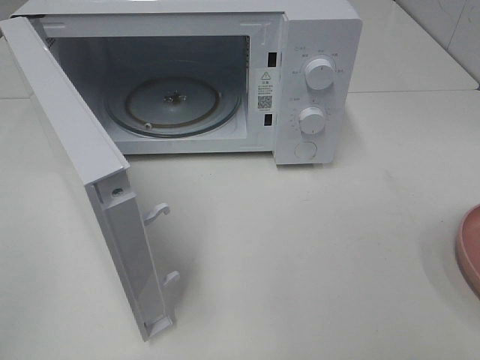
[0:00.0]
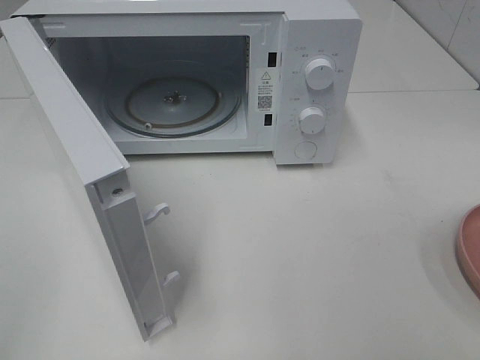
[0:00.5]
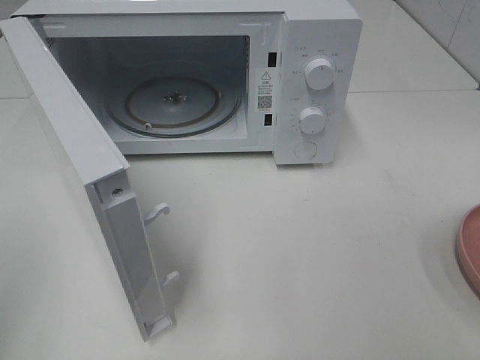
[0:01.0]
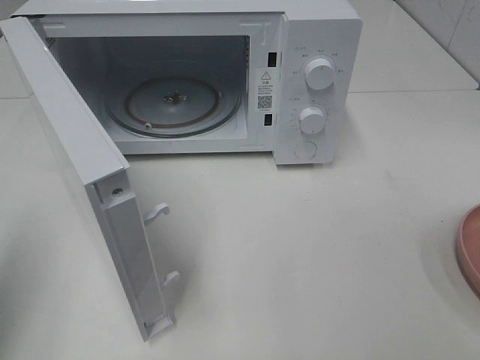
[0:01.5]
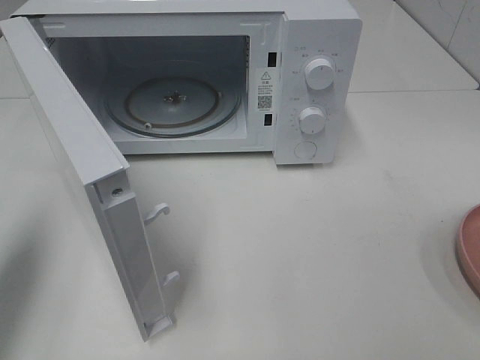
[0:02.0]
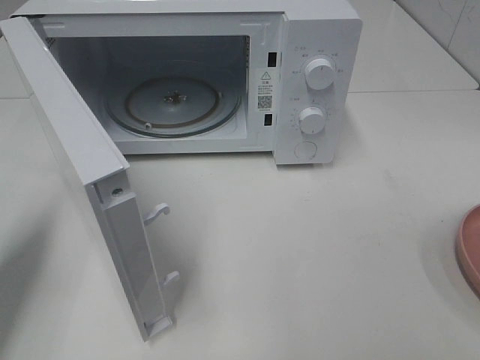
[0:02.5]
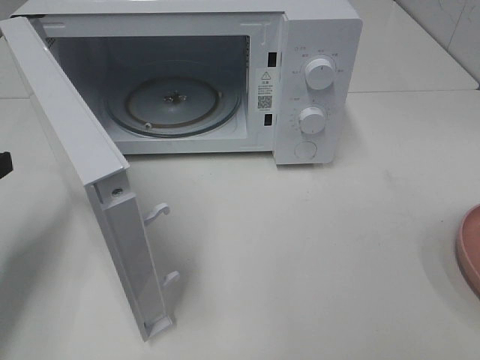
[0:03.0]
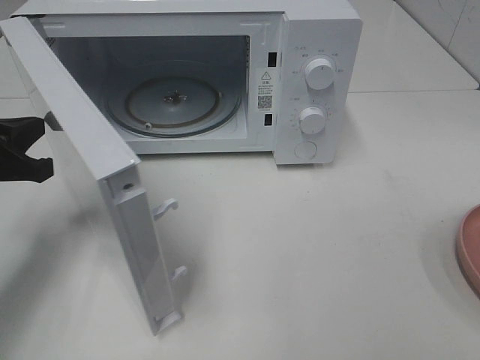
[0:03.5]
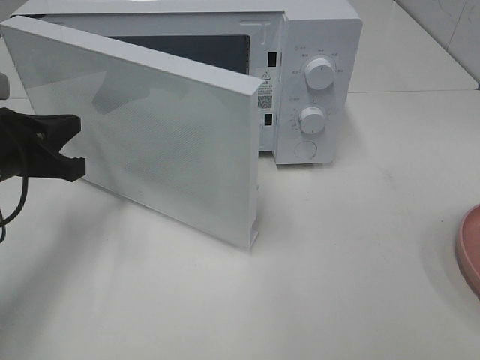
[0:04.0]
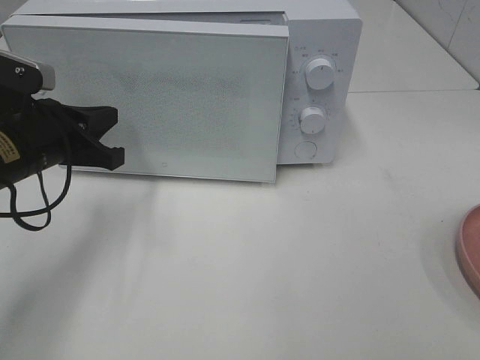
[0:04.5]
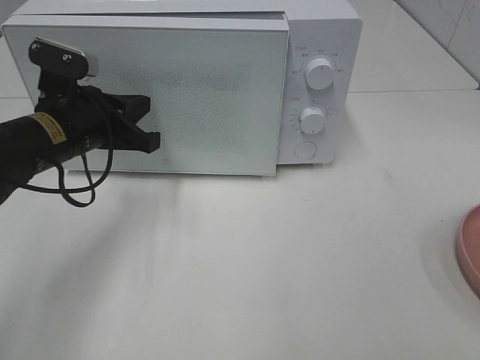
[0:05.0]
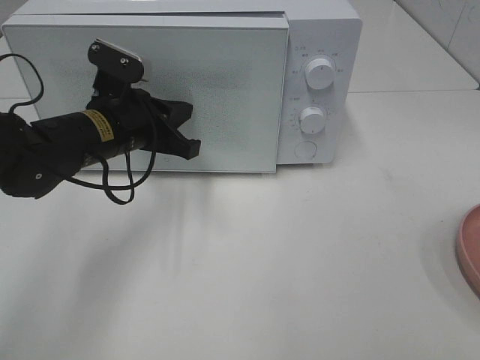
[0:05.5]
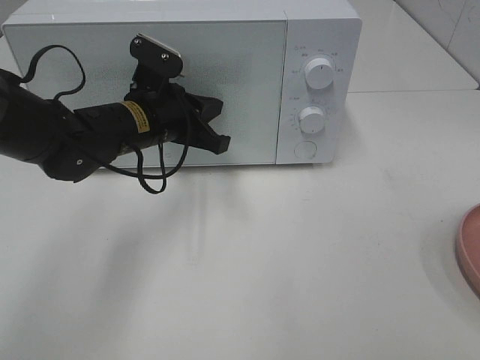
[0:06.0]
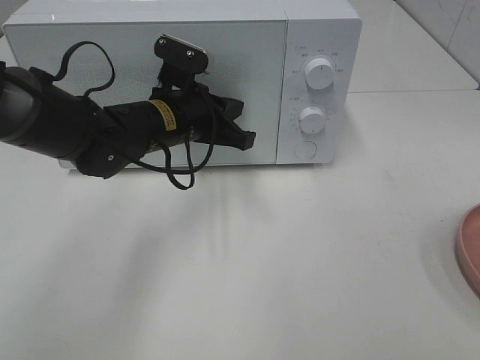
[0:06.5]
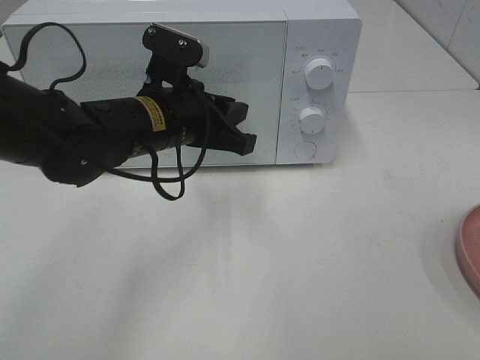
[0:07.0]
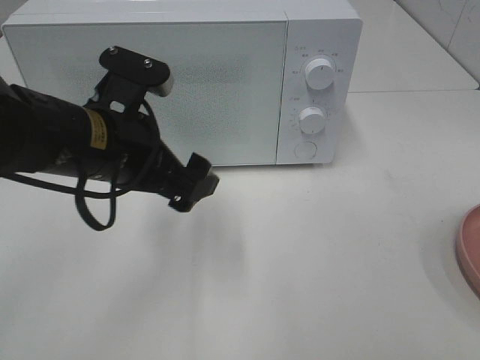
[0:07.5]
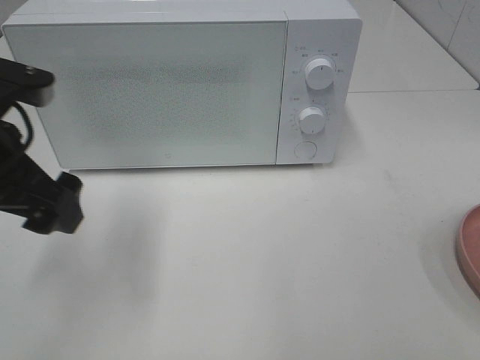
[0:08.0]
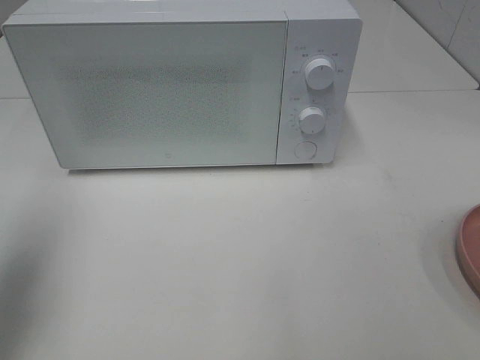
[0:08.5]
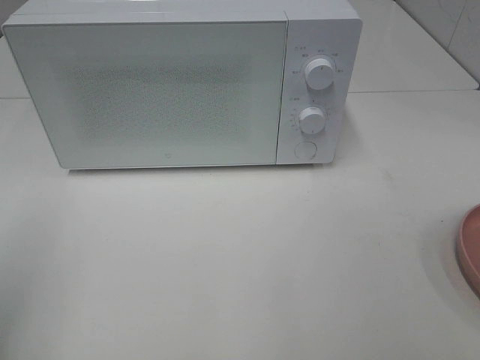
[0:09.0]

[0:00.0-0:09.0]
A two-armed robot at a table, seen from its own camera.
Task of the whole recording: Heat the burger.
Step, 0.0 to 7.0 s: Left hand: close the microwave door.
0.0 to 2.0 s: The left gripper moves forward, about 20 cm, and closes.
2.0 to 4.5 s: The left gripper is displaced downward, forward and to the right by about 20 cm.
4.5 to 7.0 s: The left gripper goes approximately 15 cm to the right.
7.0 to 9.0 s: The left gripper shifts about 35 cm to the left, backward and upward, and opens its fingers.

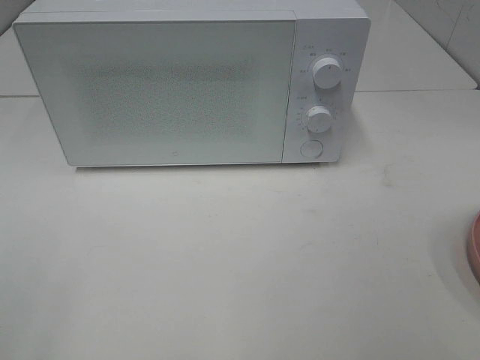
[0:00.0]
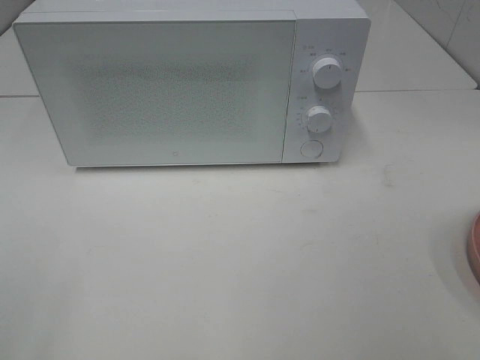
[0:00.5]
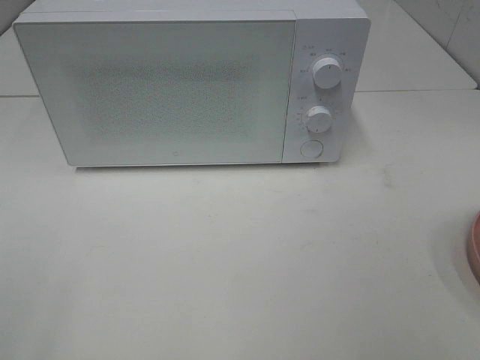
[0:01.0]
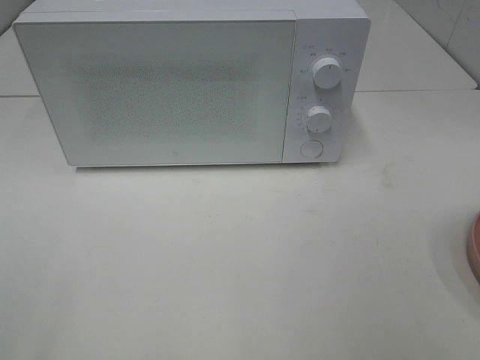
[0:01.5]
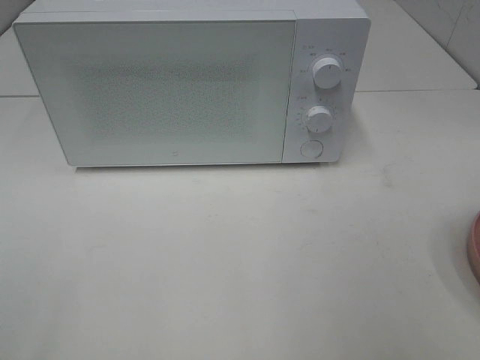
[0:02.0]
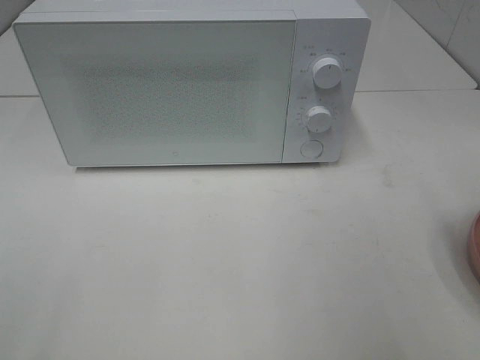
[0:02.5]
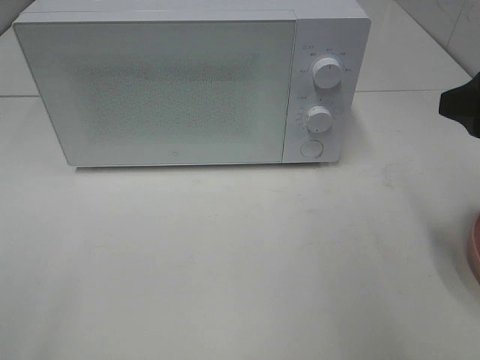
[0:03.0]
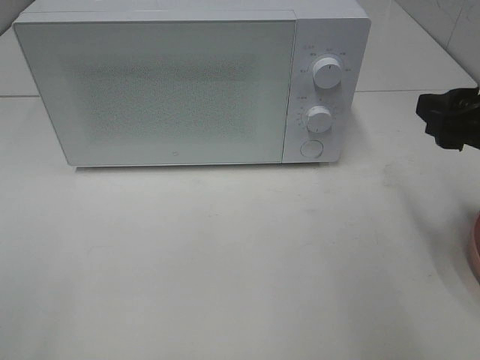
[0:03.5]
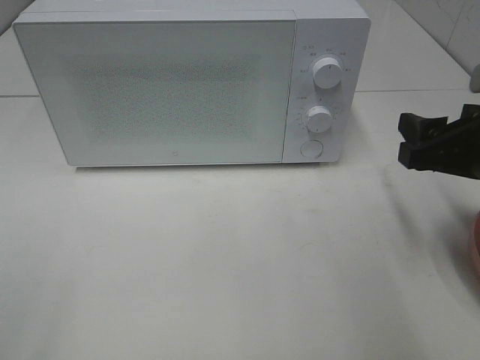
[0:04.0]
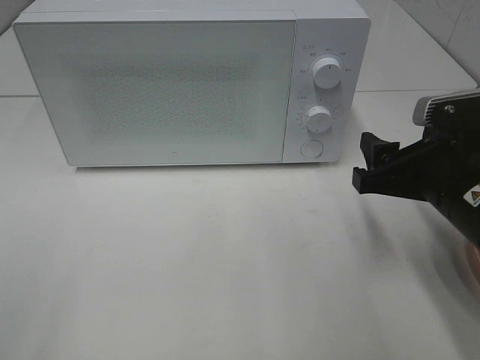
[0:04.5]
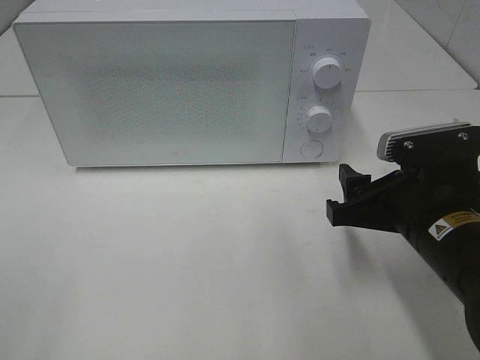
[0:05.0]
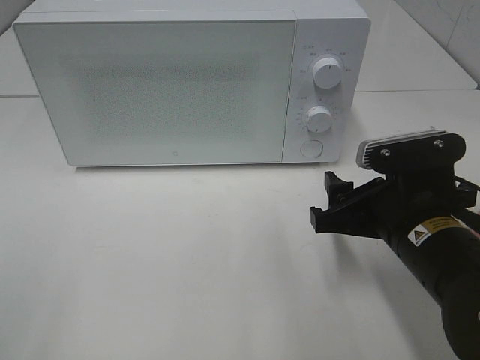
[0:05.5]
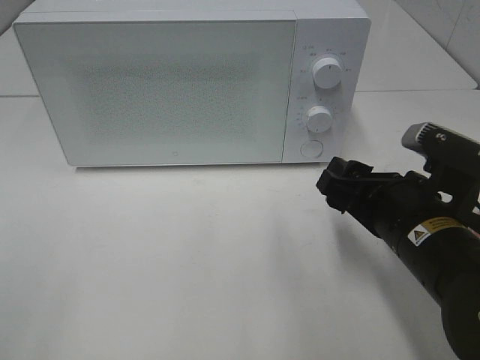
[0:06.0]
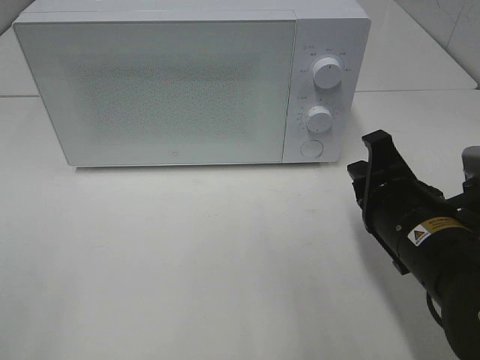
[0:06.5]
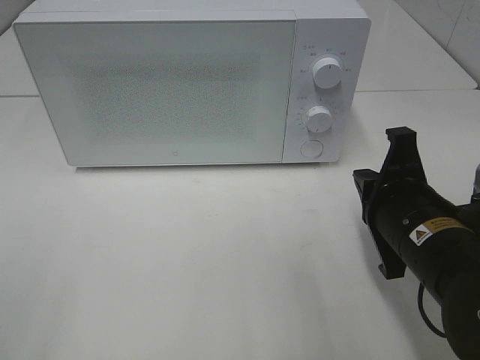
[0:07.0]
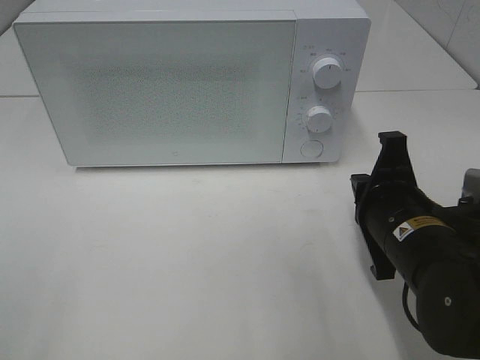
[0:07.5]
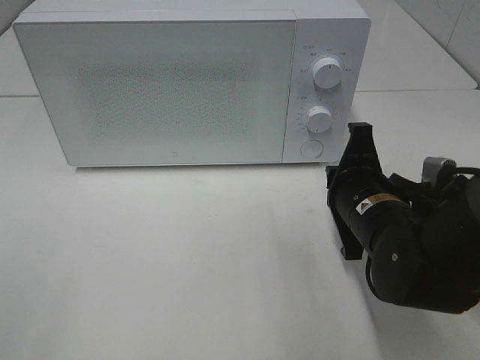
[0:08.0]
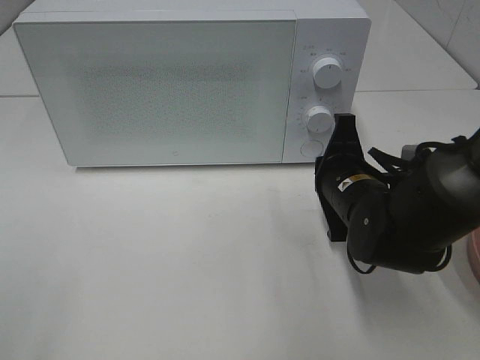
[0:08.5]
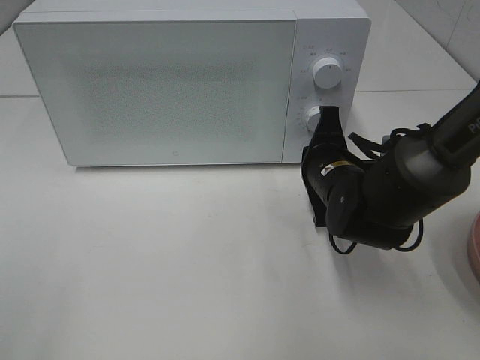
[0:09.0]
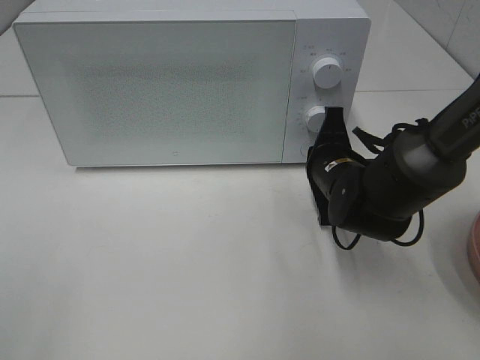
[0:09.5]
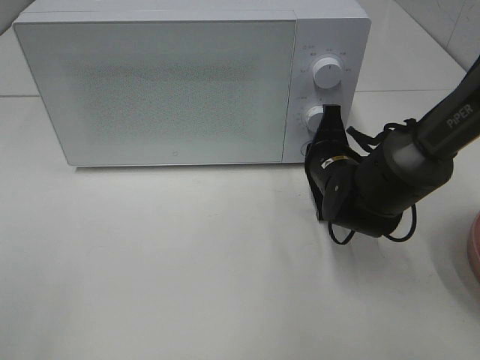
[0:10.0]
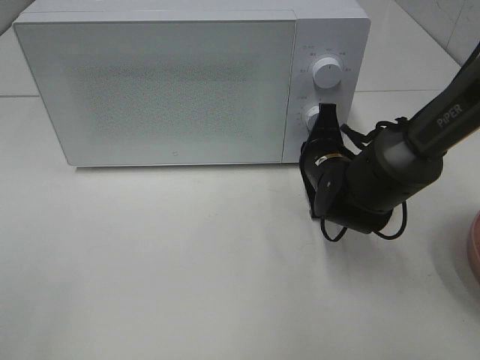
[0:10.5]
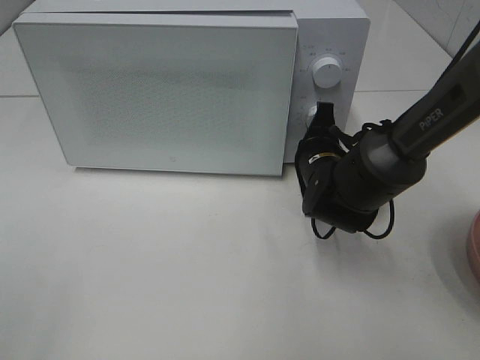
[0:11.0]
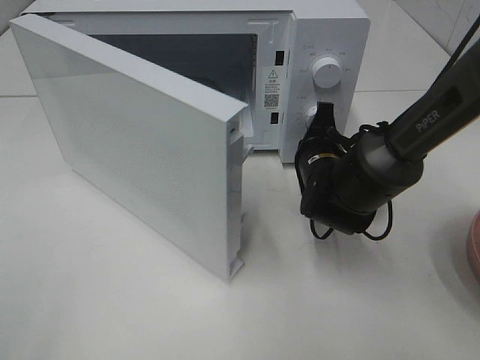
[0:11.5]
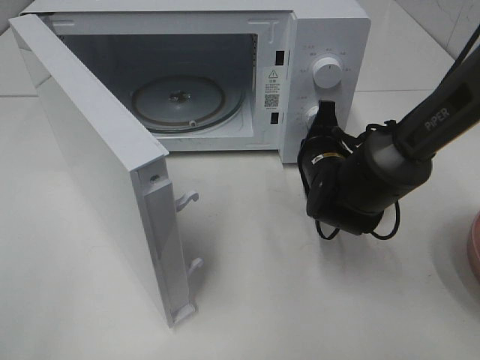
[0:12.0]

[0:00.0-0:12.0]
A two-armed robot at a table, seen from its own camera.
Task of the whole recording: Heat the burger.
2.0 to 4.0 s: The right gripper goes some 15 cm forward and downward.
4.0 to 6.0 s: The right gripper heads to the left and downward, covering about 10 cm.
6.0 to 8.0 s: The right gripper ends up roughly 5 cm from where it was, and closes up.
8.0 to 10.0 s: The right gripper moves forward, roughly 10 cm.

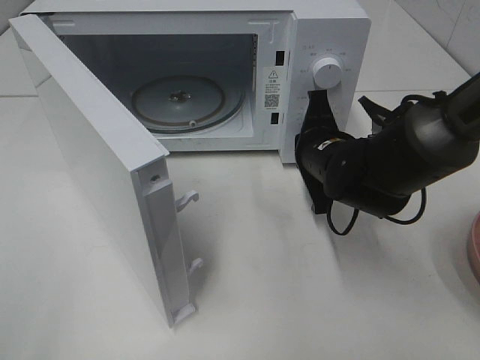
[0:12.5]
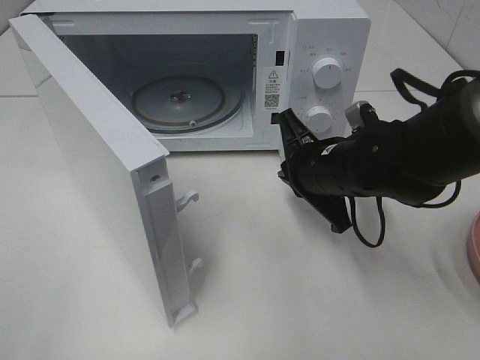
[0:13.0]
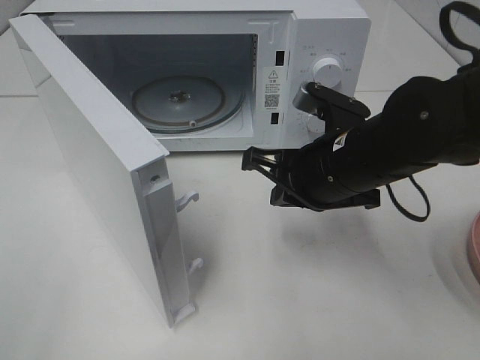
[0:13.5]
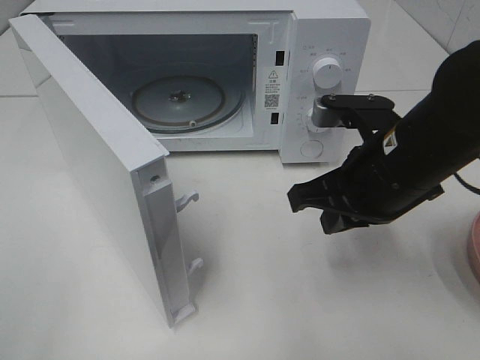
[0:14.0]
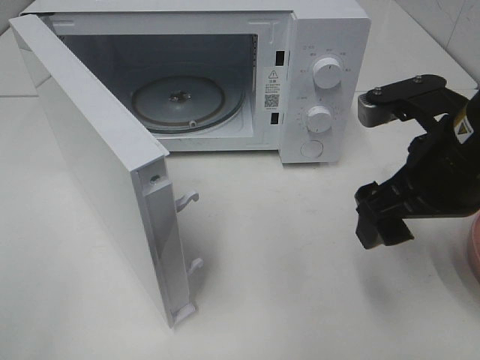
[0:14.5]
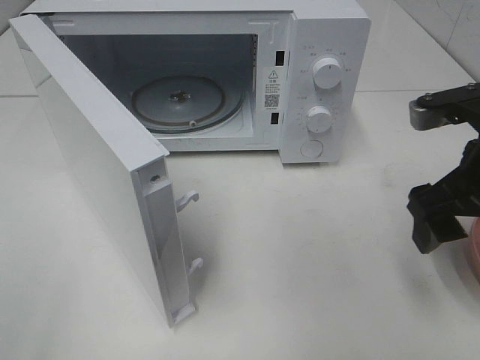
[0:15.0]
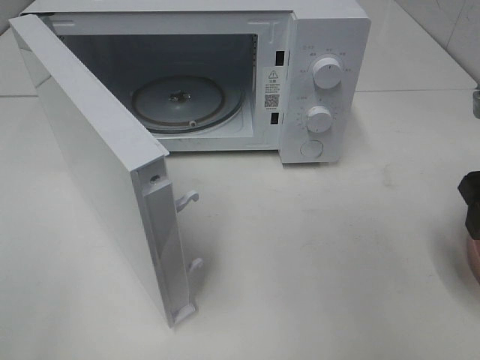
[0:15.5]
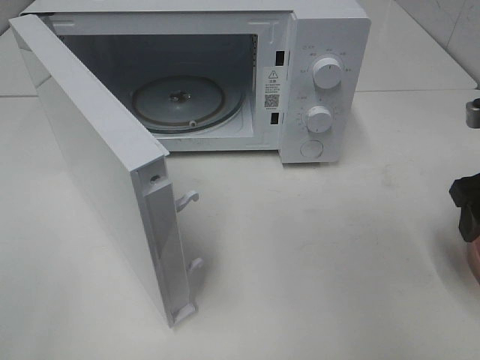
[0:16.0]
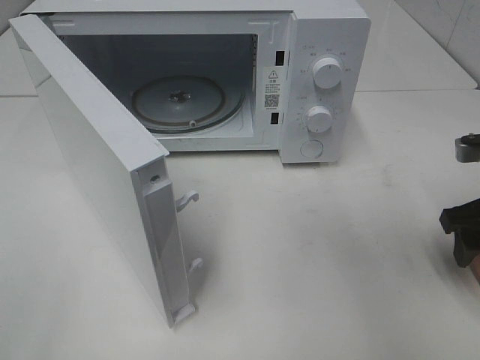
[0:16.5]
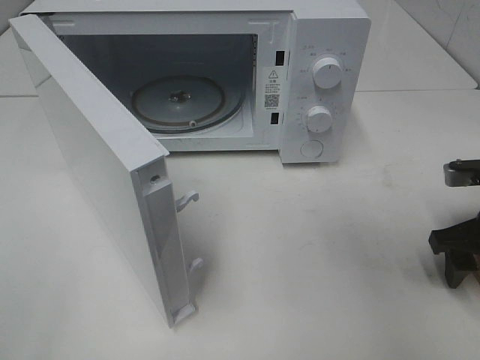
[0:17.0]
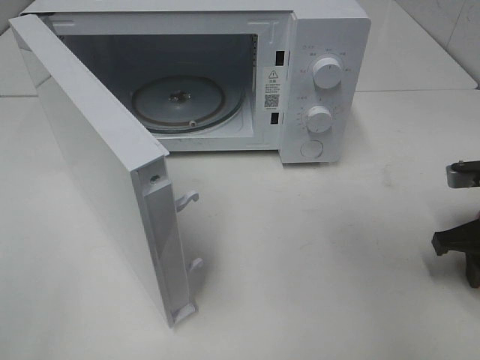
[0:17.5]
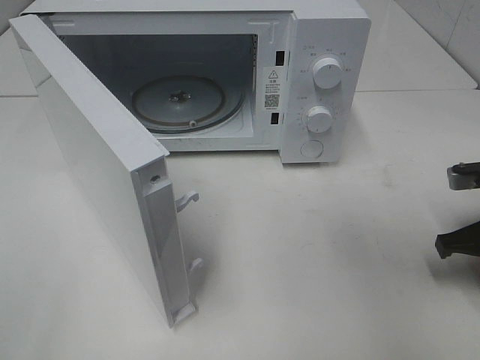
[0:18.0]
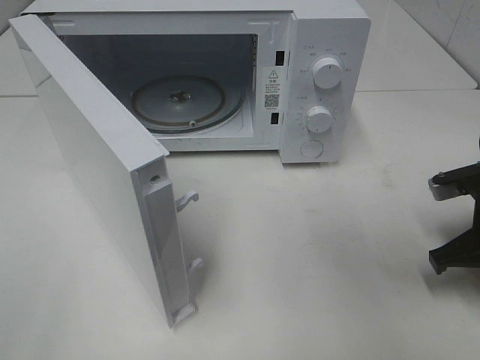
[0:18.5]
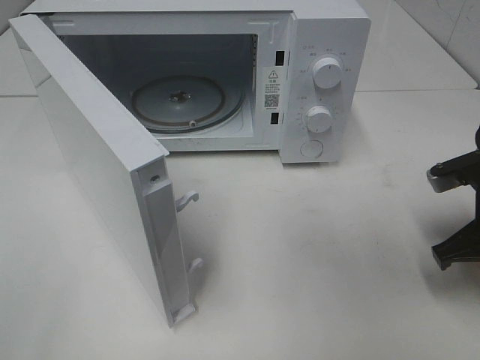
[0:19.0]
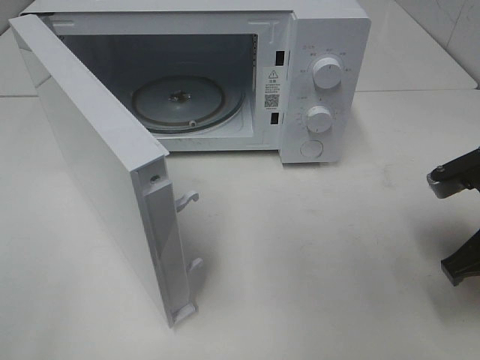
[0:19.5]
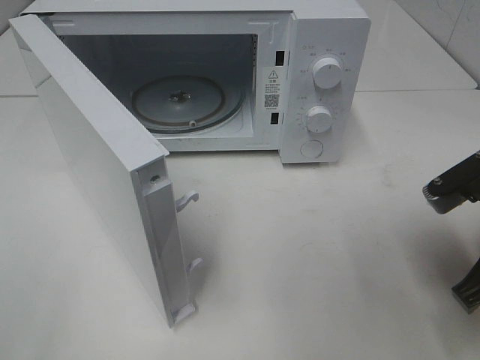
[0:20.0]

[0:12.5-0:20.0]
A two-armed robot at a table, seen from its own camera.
Task of the whole recording: Heat the burger.
Step, 13.0 to 18.0 s: Right hand: grab the plate with the hamburger.
12.5 to 14.5 s: The right gripper moves backward, upward and to the right, about 15 cm, and opens.
14.5 to 16.5 s: The right gripper goes roughly 15 cm to the right and downward.
16.5 to 18.0 s: The right gripper closes.
18.0 to 20.0 s: The right gripper moves backward, to the left and upward, some 15 cm.
